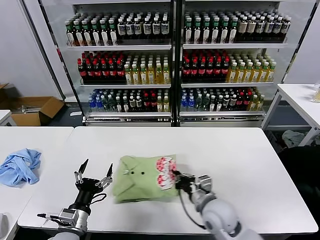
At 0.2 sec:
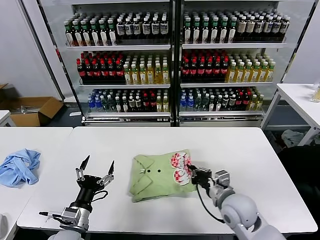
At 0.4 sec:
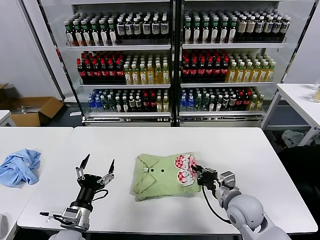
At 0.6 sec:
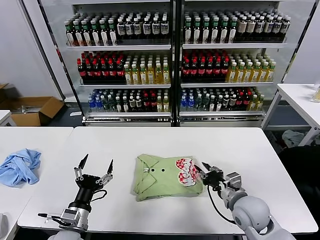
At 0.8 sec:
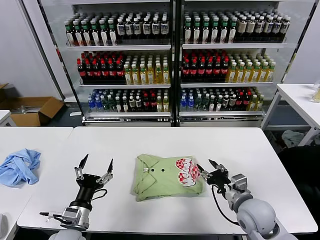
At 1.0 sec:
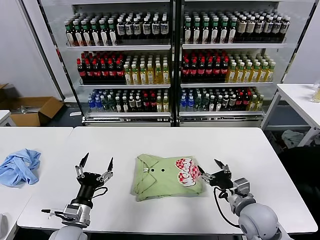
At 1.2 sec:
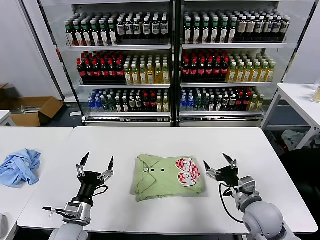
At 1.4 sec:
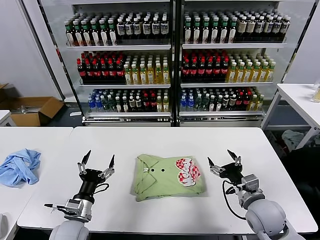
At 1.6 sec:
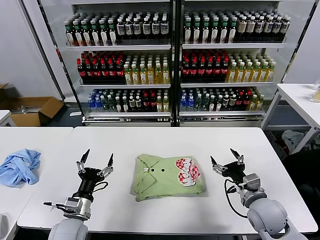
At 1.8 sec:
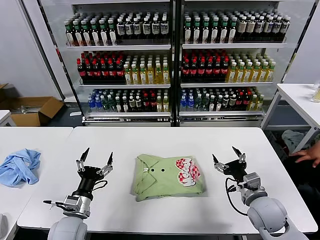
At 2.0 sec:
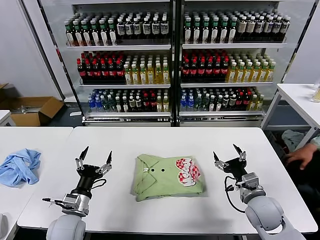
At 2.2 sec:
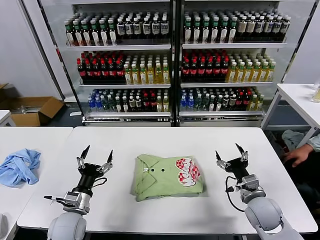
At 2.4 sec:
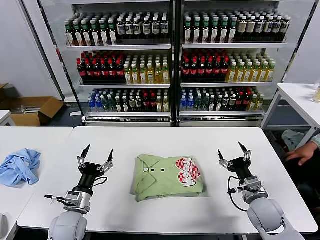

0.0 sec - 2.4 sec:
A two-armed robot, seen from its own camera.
Task of the whole recording: fold and organize the clothes.
0.0 sec - 1.2 sec: The right gripper shifts approximately 15 cm to the right, and opens its fingers.
1.2 sec - 2.4 sec: The right gripper ends up some 5 cm from where it was.

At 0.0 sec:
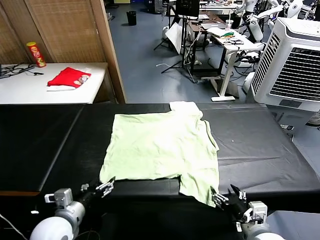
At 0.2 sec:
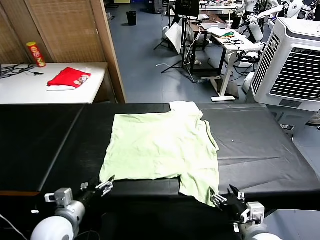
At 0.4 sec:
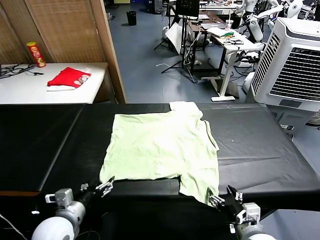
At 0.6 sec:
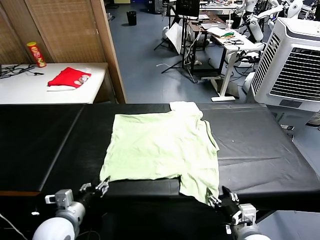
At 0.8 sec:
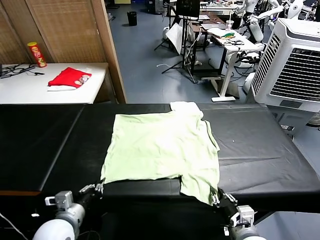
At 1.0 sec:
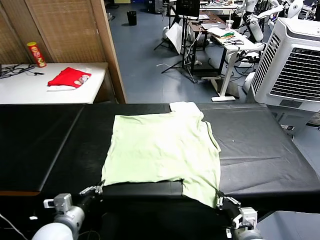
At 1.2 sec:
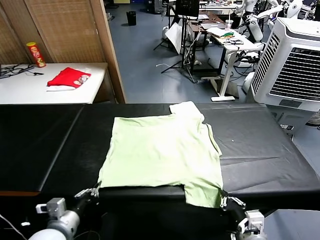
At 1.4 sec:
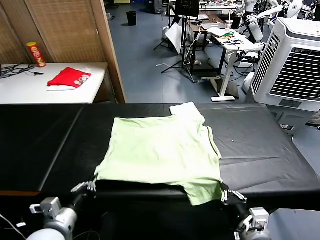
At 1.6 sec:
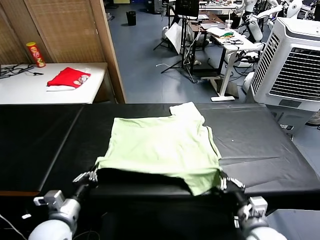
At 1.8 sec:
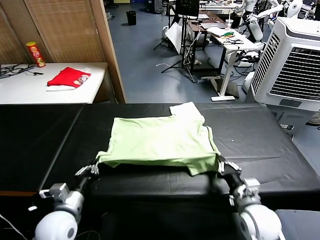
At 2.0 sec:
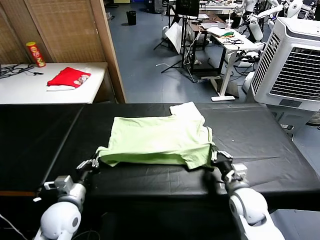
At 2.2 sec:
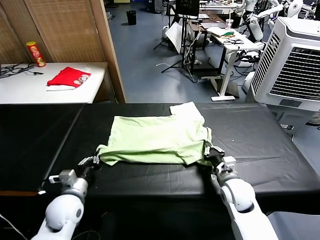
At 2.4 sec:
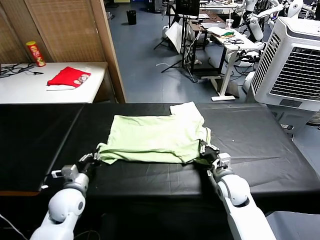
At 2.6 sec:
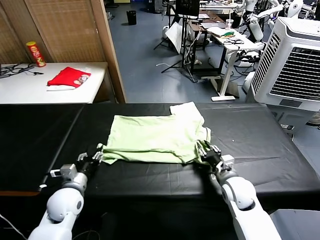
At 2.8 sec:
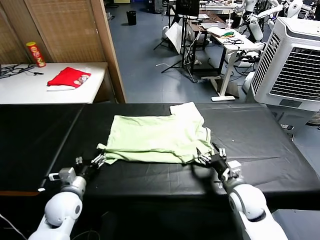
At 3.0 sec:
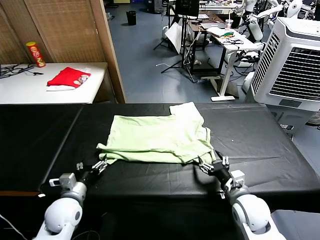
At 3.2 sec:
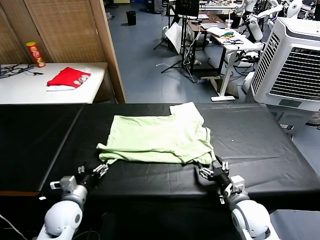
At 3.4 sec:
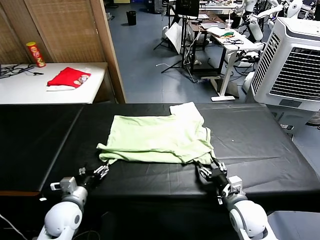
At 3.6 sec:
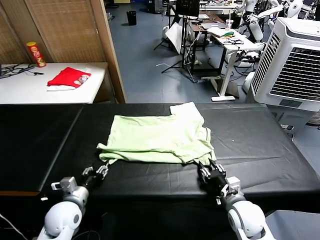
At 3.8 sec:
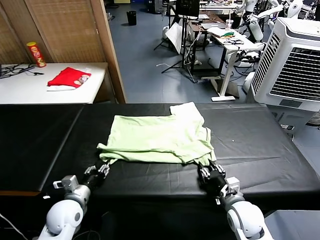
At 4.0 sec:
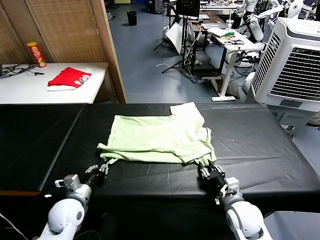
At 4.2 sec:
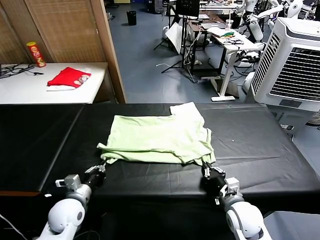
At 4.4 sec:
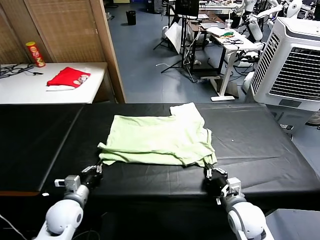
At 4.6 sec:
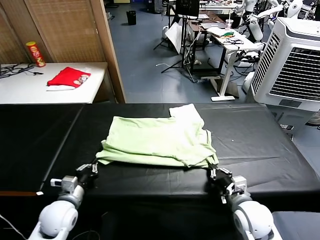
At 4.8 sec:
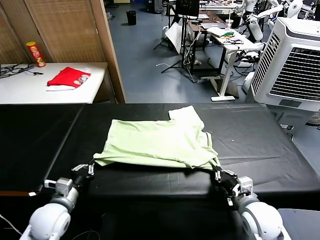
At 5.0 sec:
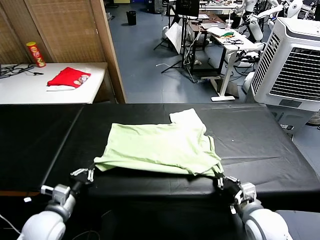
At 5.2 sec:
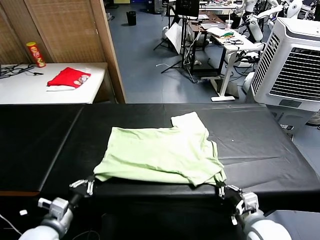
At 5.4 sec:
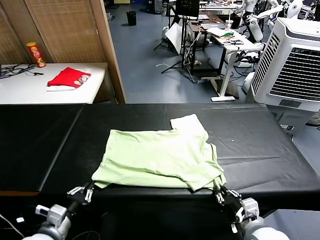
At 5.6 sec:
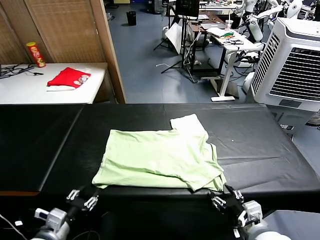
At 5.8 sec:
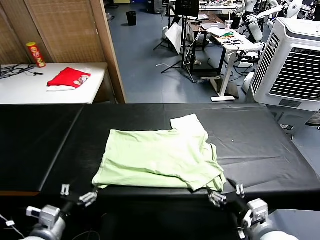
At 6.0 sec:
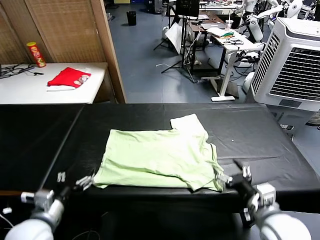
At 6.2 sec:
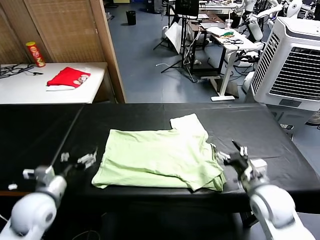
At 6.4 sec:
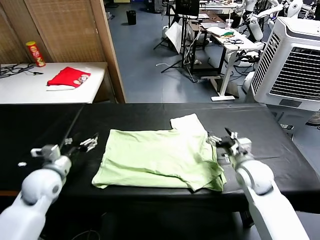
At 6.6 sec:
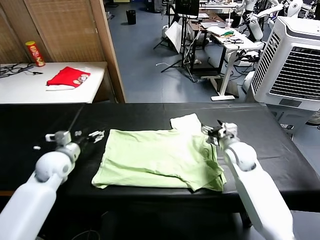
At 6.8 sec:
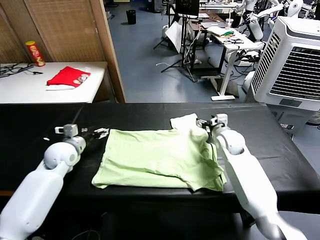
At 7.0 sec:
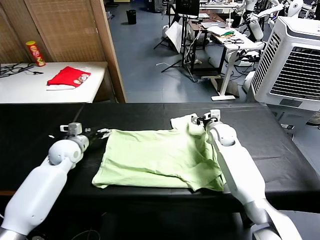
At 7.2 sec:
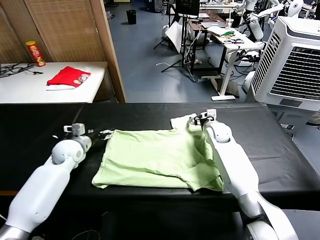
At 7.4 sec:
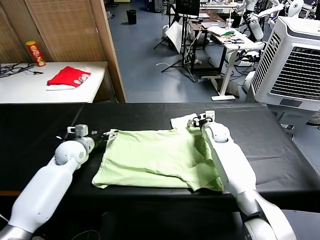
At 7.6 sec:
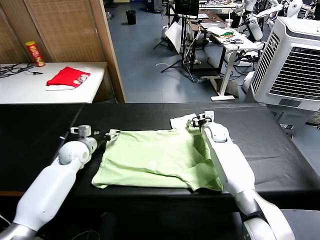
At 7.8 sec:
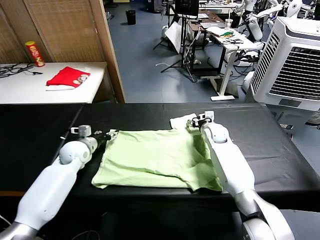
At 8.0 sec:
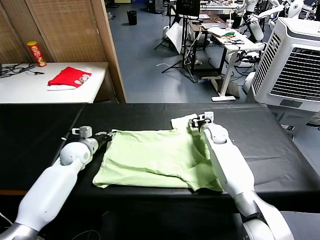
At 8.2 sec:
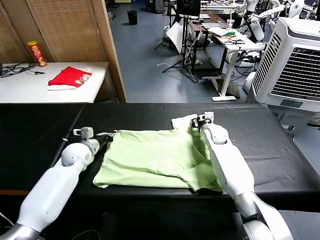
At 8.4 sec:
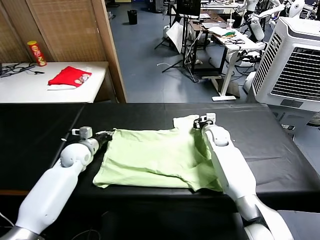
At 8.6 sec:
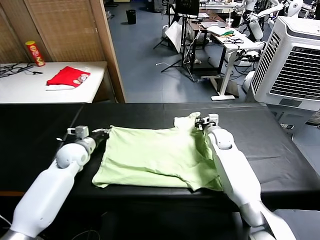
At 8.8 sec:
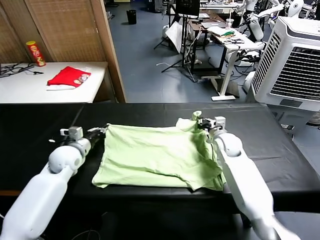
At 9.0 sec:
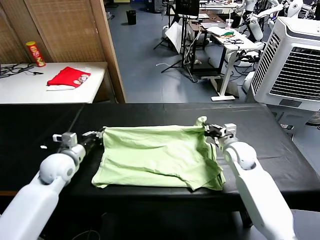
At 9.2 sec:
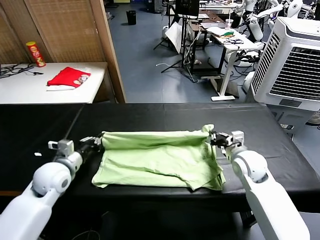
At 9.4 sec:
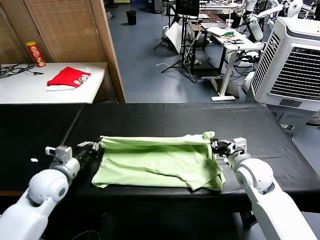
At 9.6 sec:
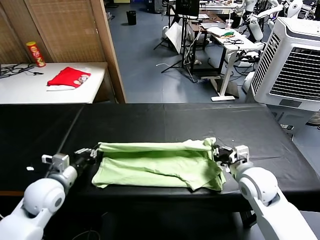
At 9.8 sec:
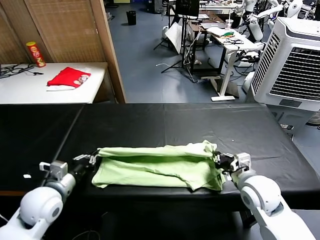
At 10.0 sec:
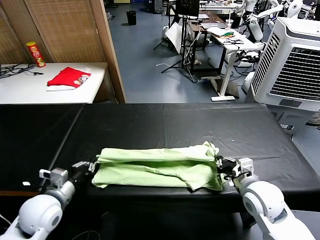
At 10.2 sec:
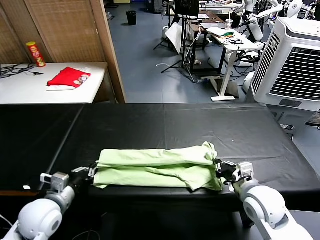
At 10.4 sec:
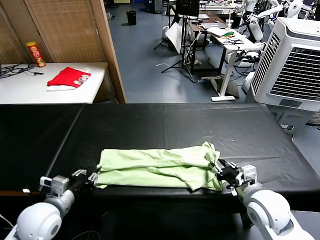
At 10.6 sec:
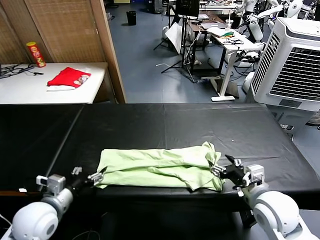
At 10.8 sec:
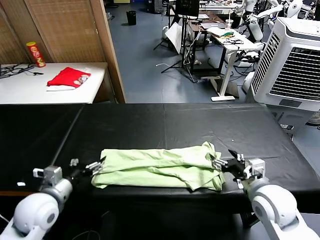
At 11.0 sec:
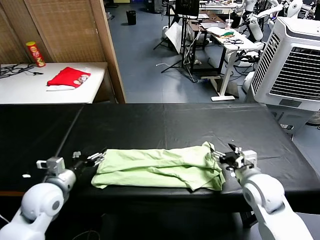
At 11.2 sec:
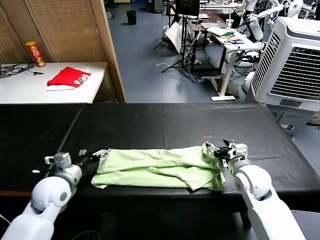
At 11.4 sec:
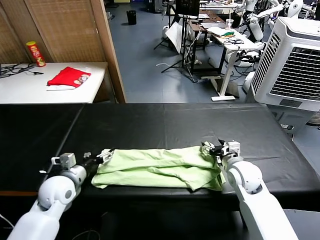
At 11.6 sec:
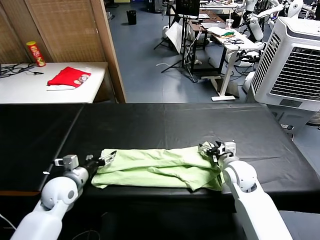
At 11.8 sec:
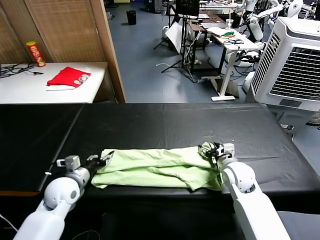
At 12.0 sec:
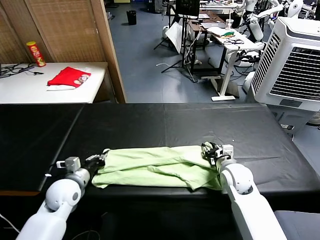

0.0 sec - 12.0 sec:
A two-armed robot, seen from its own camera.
Task of the whole recording: fold and organize the clothes.
Step, 0.0 sec - 0.8 sec: use both grippers simultaneously to clamp the lower edge of the clothing fabric.
Step, 1.2 sec - 2.6 sec: use both grippers to drag the lower edge of the fabric forward and fold it over the upper edge.
Step, 3.0 sec - 5.6 sec: Drag the clothes downward with both gripper.
Step, 5.8 sec - 8.2 sec: use both grippers simultaneously to clamp the upper edge of the clothing fabric.
Step, 8.4 sec - 10.6 sec: use both grippers to drag the upper edge of the fabric backward and fold it over the lower edge.
1.6 sec - 3.0 sec: The left gripper heads forward and downward, covering some 10 cm, and opens, while the right gripper goes approximately 5 cm forward, and opens.
3.0 sec - 4.4 sec: The left gripper closes up. Meanwhile the right gripper closes up.
4.4 sec - 6.0 sec: The right gripper moves upward, approximately 10 cm, and opens; the left gripper is displaced backward and upward by about 10 cm, and opens.
6.0 sec - 7.6 sec: Both grippers travel together forward, some 30 cm.
7.6 sec - 9.0 sec: The left gripper goes some 10 cm backward, and closes. The right gripper moves backward and to the right, about 15 cm, and closes up.
9.0 sec - 10.4 sec: The two grippers go approximately 15 cm backward. The right gripper opens up.
10.4 sec - 12.0 sec: Both grippers travel together forward and downward, about 15 cm. The right gripper opens and closes again. Meanwhile the left gripper opens and closes again.

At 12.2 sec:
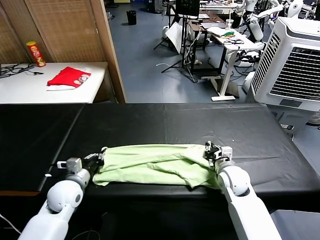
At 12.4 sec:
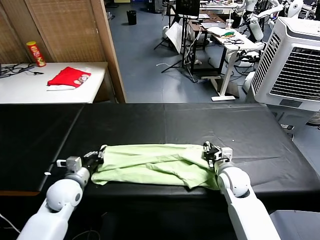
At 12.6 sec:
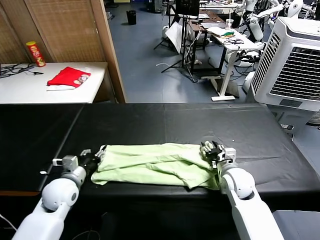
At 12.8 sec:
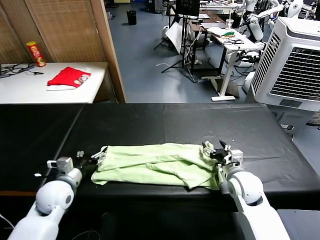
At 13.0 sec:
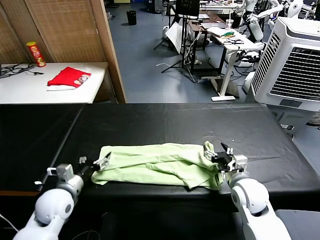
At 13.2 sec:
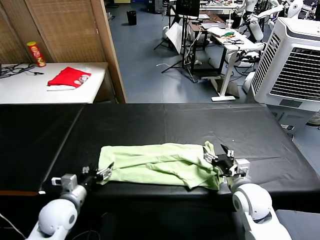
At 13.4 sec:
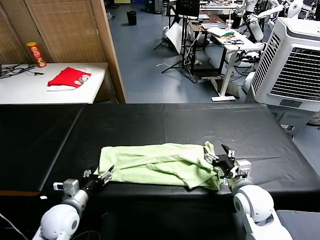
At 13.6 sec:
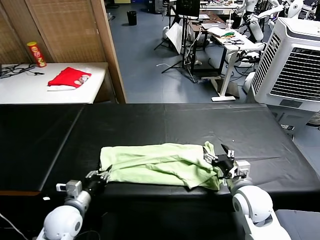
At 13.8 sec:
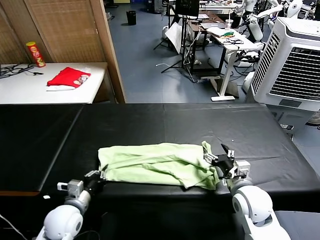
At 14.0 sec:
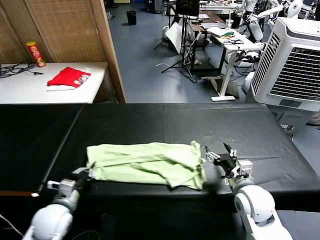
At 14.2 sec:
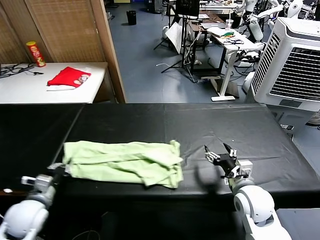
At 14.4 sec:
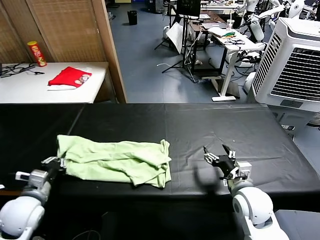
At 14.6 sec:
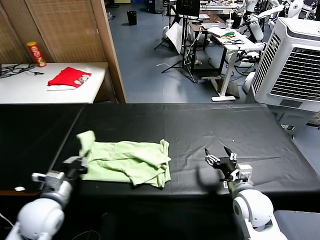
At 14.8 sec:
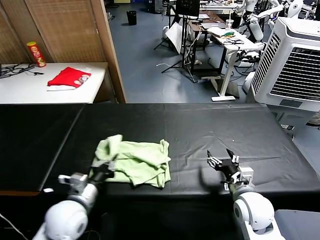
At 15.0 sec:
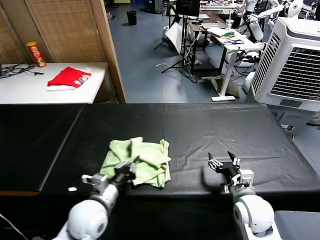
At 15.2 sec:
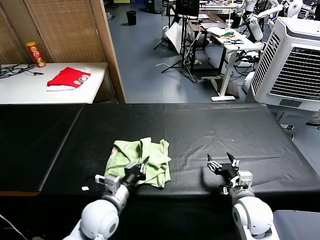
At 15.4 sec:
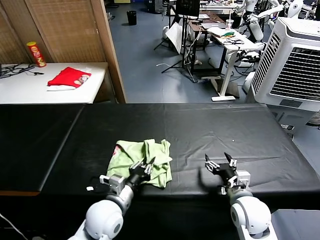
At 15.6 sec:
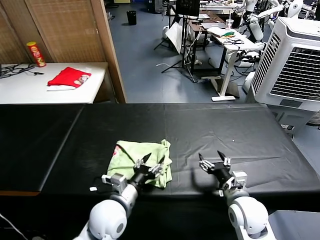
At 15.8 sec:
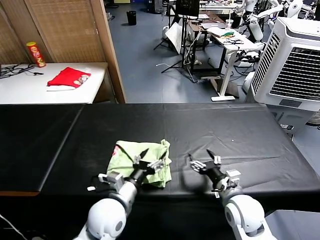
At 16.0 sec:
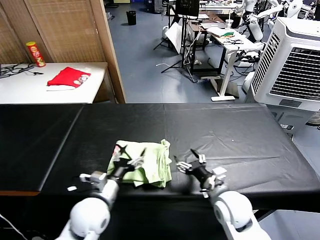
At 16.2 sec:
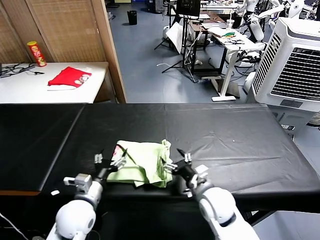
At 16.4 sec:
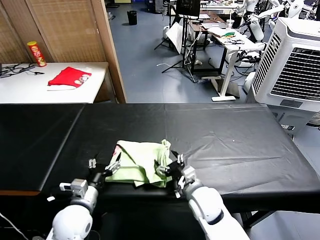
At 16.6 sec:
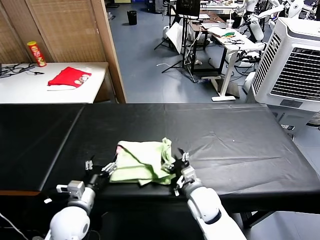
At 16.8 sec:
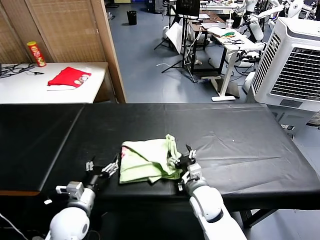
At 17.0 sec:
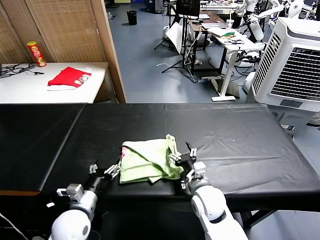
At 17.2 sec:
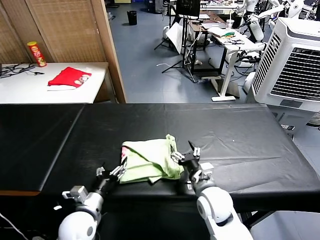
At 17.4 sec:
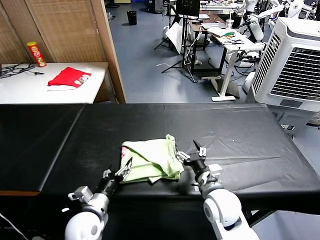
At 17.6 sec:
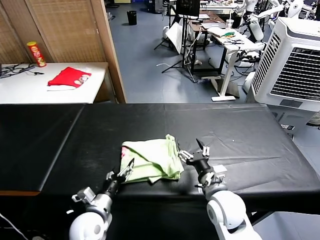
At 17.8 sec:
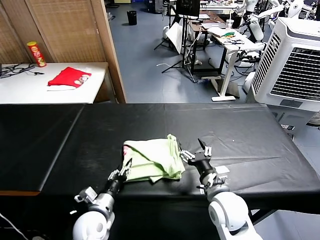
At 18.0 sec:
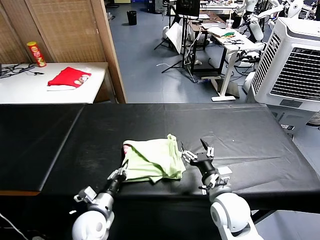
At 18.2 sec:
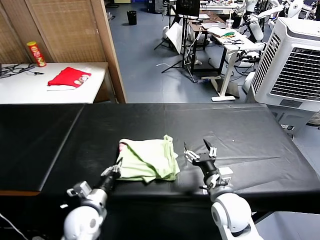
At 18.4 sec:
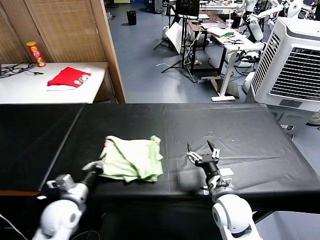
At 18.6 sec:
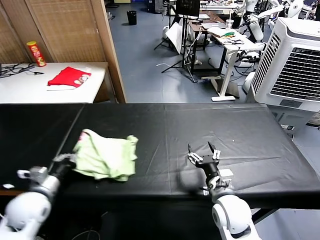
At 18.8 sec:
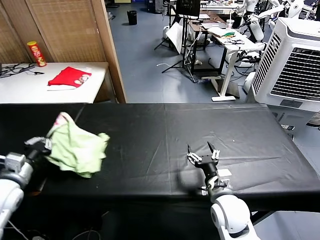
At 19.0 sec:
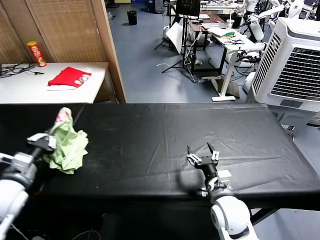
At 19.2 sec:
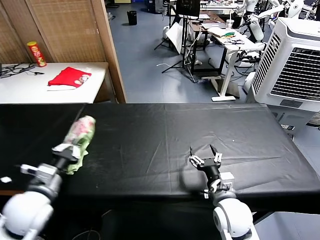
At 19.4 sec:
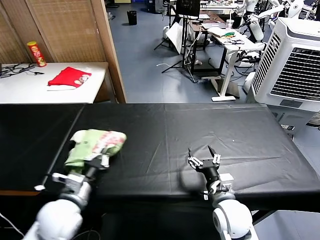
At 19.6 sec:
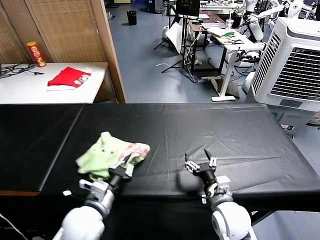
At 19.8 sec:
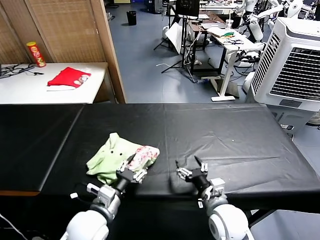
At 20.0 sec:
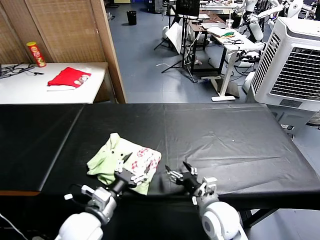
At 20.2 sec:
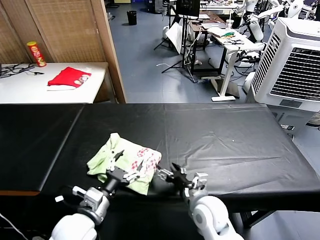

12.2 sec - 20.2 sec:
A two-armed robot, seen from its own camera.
Task of the whole recording: fold and organize the clothes.
Step, 13.8 sec - 15.6 sec: use the left gripper to drag the left edge of the fabric to the left and folds it over the right edge.
Step, 15.8 sec - 19.8 sec: Flip the folded clothes over with left gripper.
12.2 sec - 13.8 sec: The two grippers go roughly 10 cm backward. The left gripper opens and closes again; the right gripper opens.
13.8 sec - 15.4 sec: The left gripper heads to the right, covering roughly 15 cm.
15.4 sec - 17.0 sec: Both grippers travel together to the left, roughly 10 cm. The left gripper opens up.
17.0 sec - 18.6 sec: The left gripper moves to the left, approximately 10 cm, and closes up, while the right gripper goes approximately 5 cm to the right.
18.6 sec - 20.2 sec: The left gripper goes approximately 15 cm to the right, and opens its fingers. The right gripper ends up roughly 5 cm from where it was.
